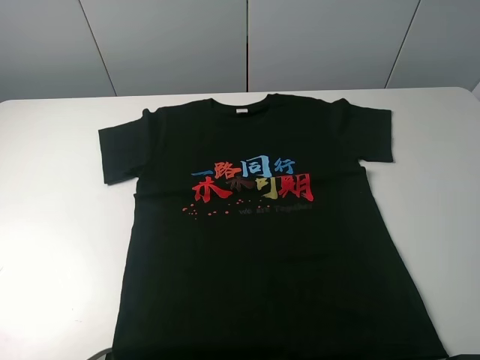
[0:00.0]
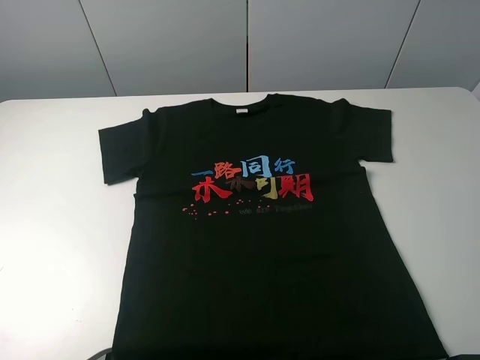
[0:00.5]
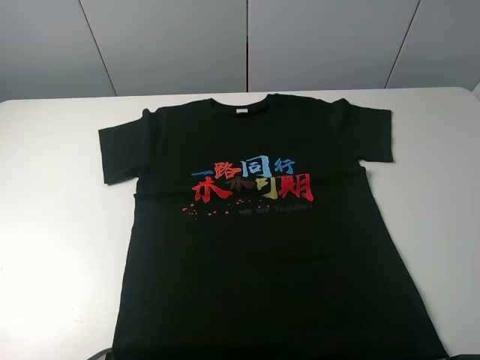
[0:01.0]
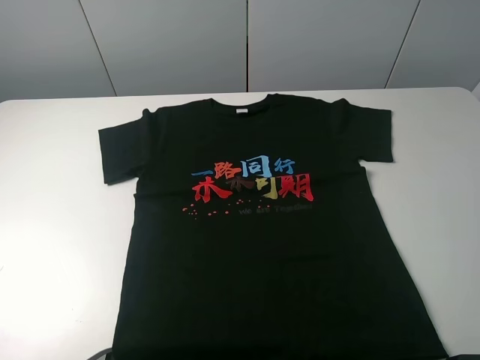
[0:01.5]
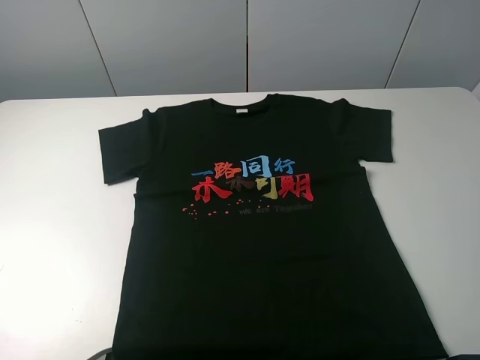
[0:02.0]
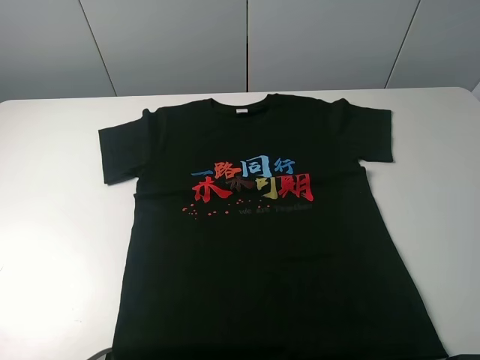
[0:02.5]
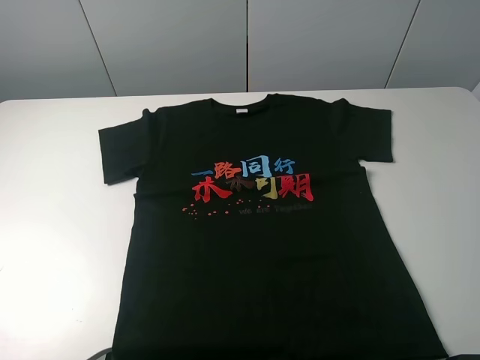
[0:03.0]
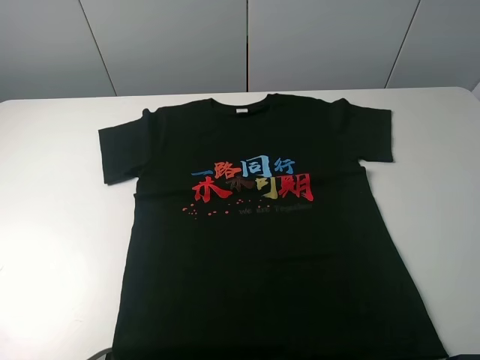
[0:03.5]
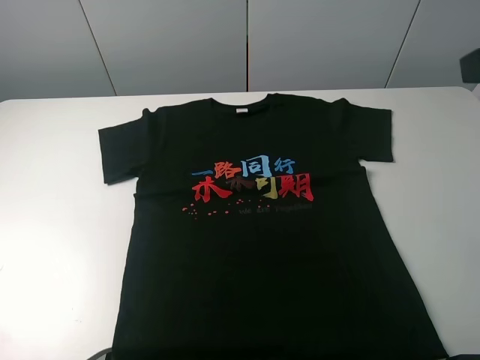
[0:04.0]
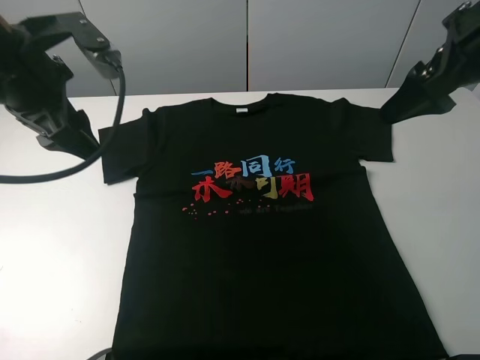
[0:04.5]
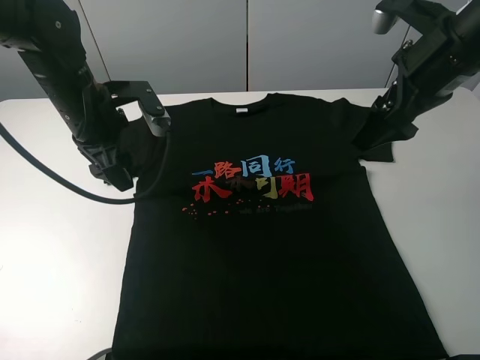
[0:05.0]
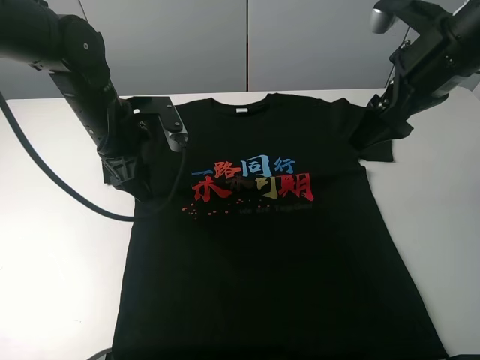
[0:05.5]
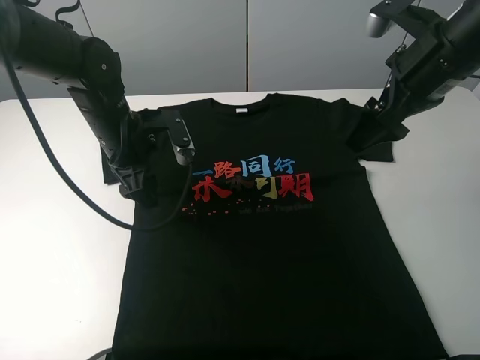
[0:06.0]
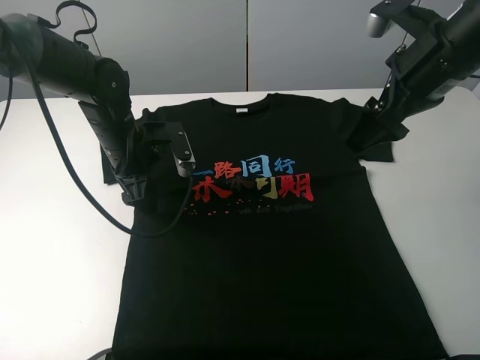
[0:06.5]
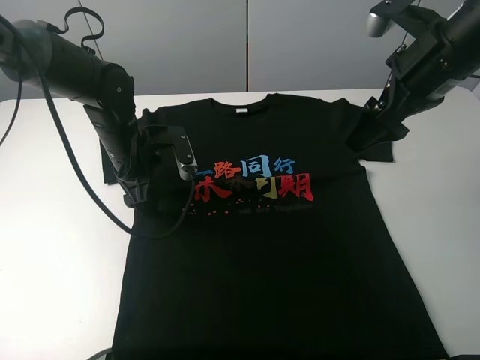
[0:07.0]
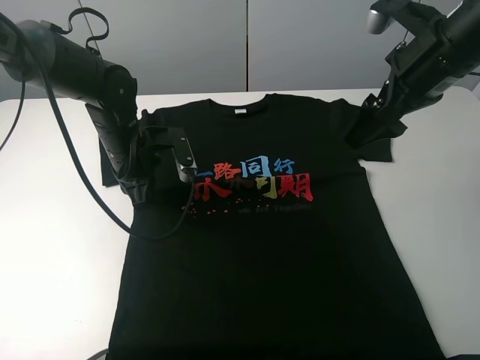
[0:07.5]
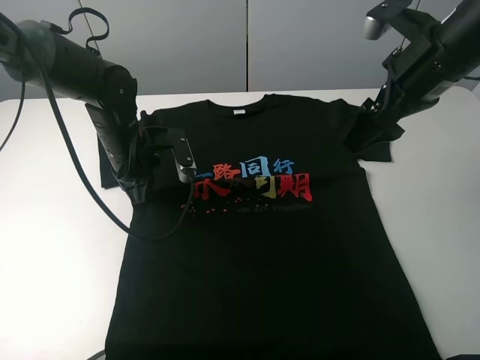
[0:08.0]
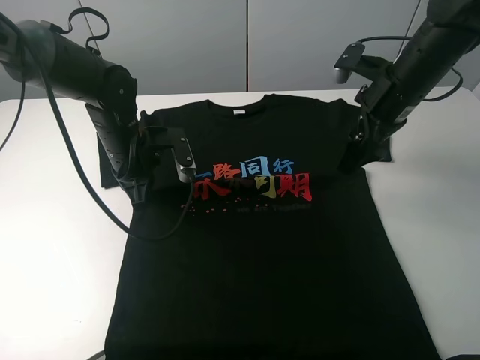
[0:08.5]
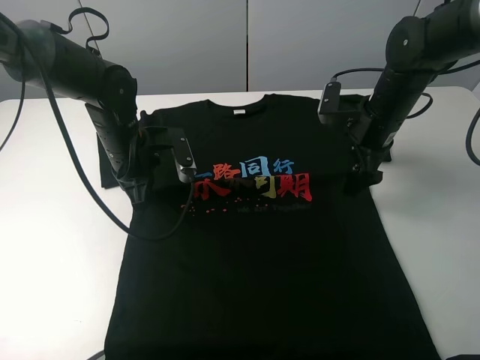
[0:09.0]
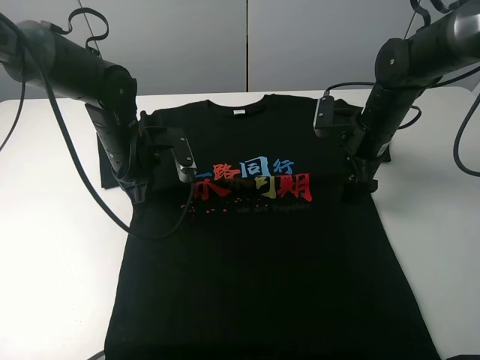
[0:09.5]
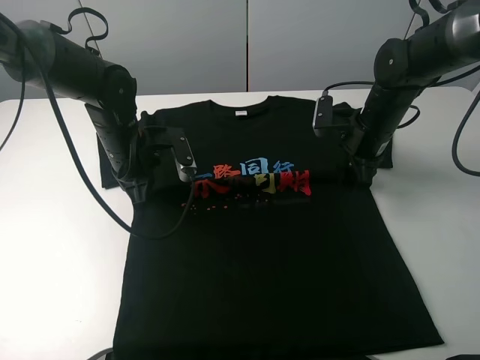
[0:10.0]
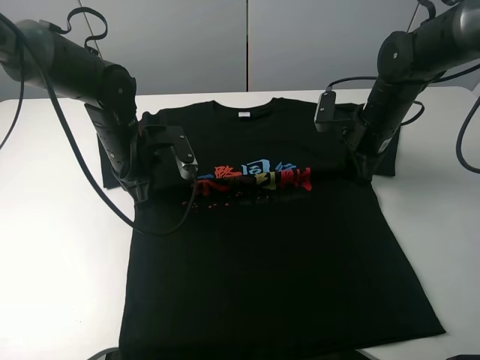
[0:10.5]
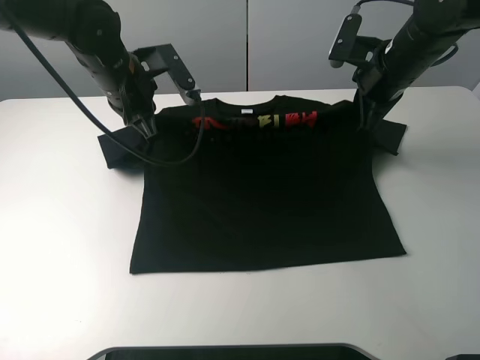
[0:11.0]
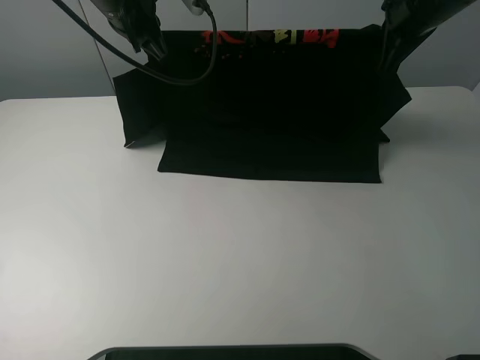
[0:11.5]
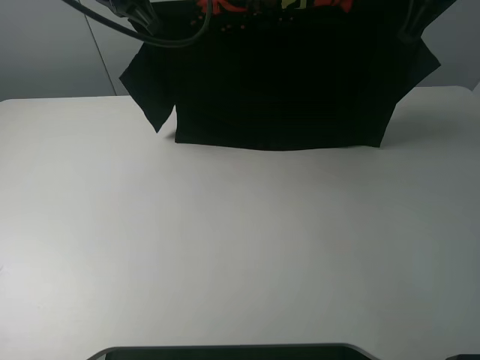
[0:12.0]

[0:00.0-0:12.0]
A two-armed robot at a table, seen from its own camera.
Task of the whole recording: fold the clothes on the table.
Step, 0.0 to 10.0 s: Lift the black T-shirt with the left gripper.
0.0 to 2.0 s: Both grippers stay put.
4.0 to 6.0 s: The right gripper goes roughly 15 cm forward, downward and to the left; the left gripper goes approximately 30 cm downward, to the right and forward.
6.0 to 8.0 s: The left gripper closes up.
8.0 to 10.0 s: The right gripper shifts roughly 15 cm downward and forward, and closes up.
10.0 to 12.0 s: Both grippers move upward, roughly 20 cm.

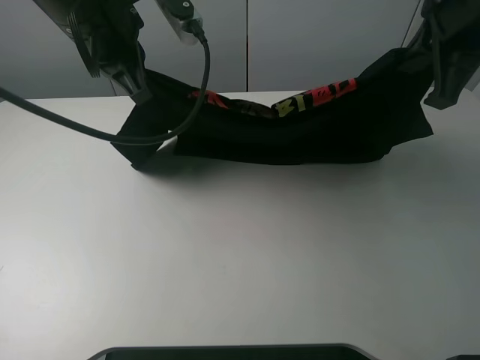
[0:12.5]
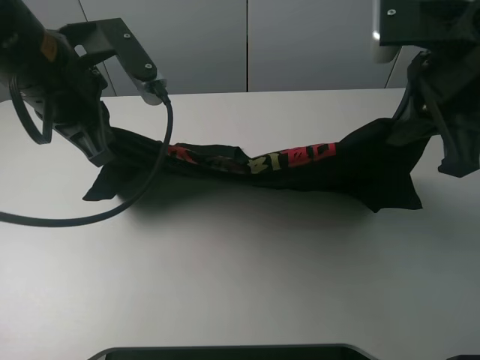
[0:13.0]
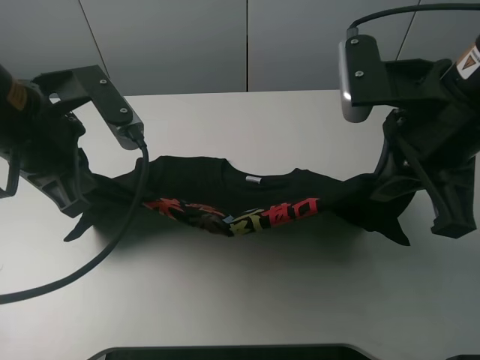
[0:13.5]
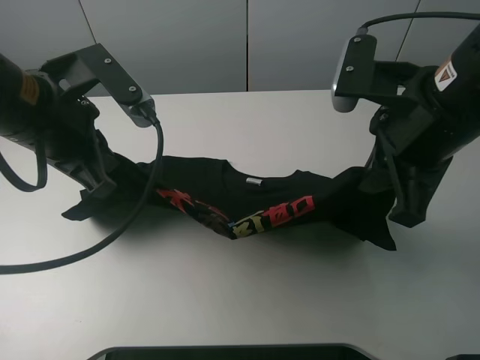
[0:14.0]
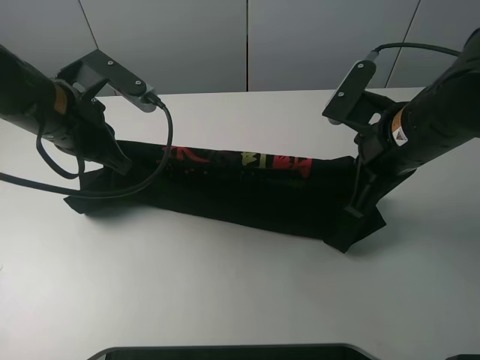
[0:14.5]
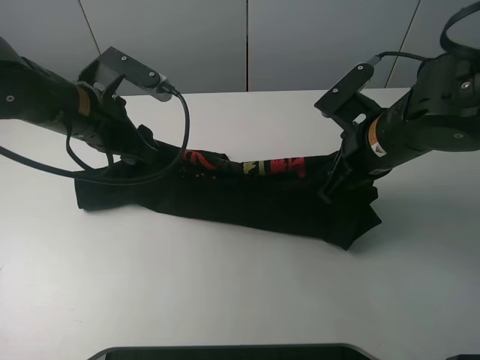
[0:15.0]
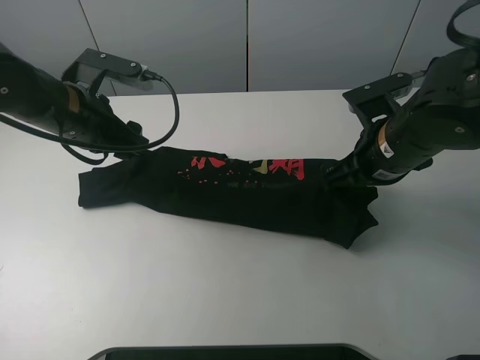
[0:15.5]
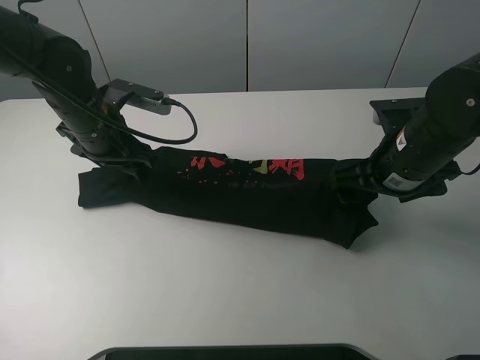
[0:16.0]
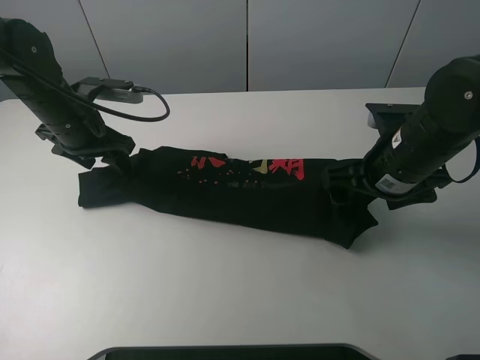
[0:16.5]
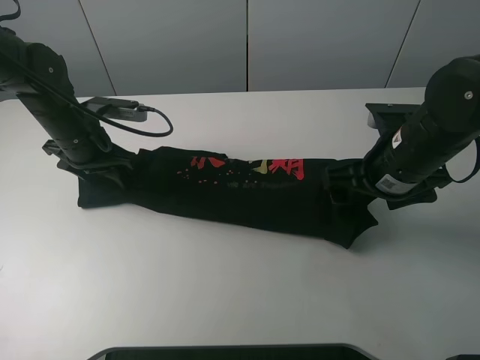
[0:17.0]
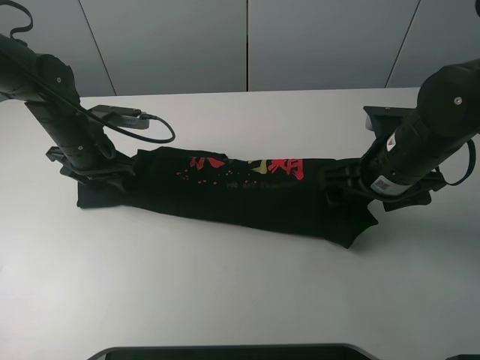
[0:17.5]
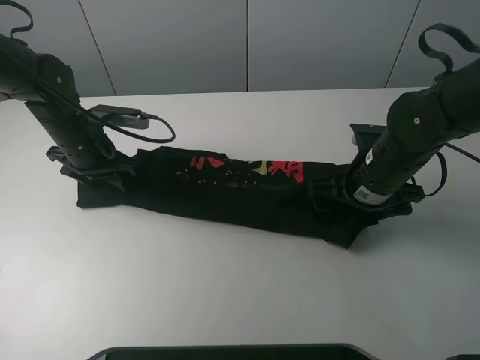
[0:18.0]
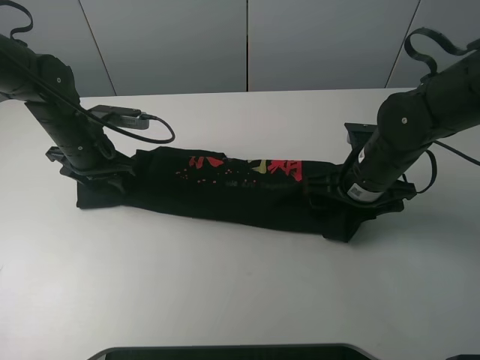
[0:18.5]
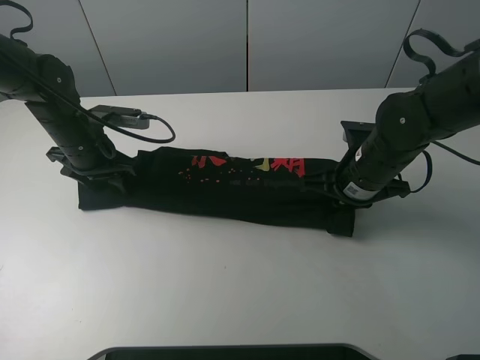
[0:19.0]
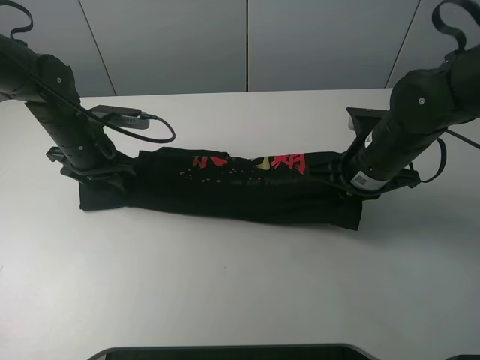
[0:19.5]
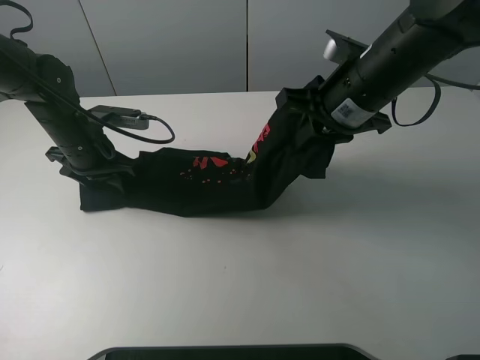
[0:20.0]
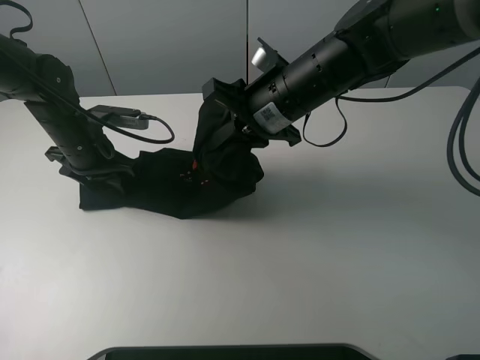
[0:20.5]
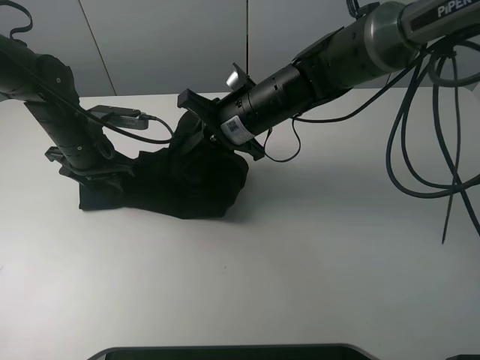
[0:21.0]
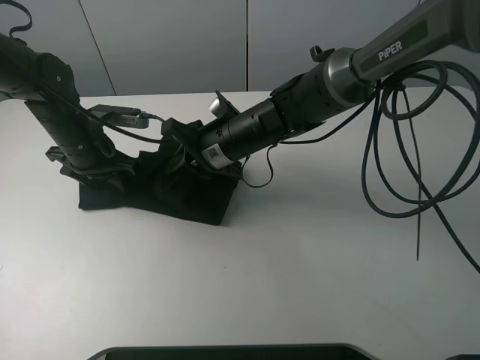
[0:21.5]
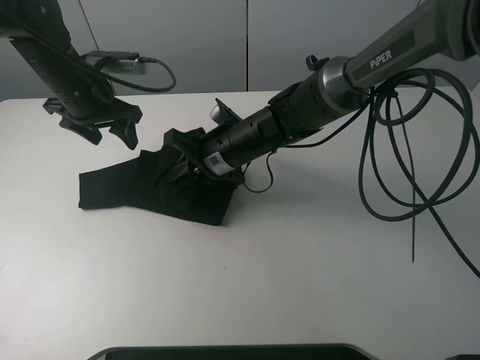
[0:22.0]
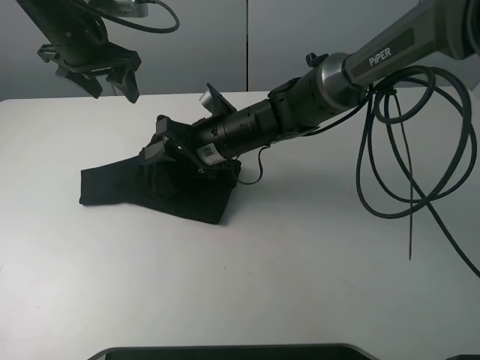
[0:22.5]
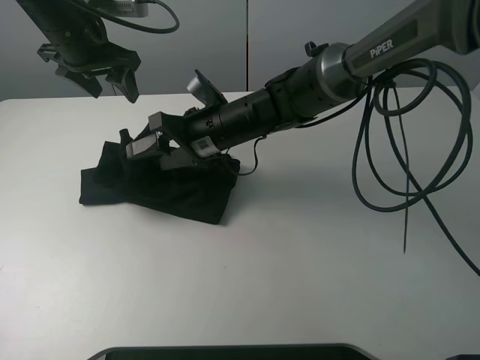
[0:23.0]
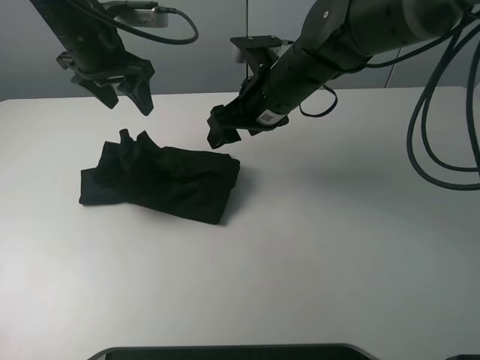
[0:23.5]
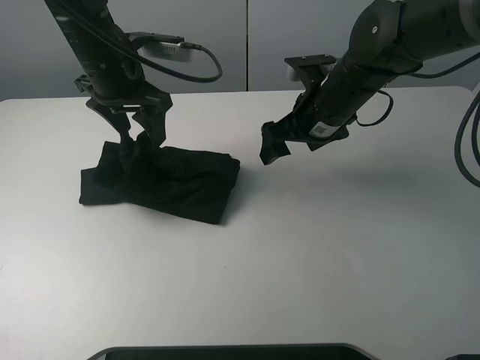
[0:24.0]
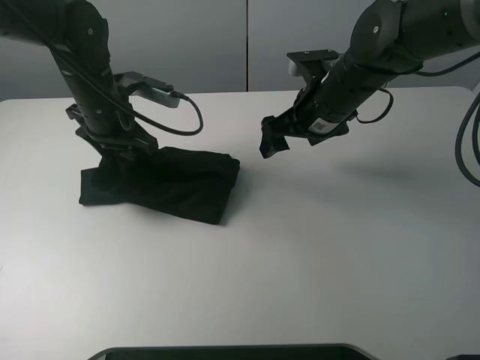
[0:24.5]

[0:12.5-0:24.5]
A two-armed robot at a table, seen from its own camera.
Task of the whole recording: fold the clothes on the table.
Step, 12.5 to 16.5 s: Fold the black T-shirt downward with the left gripper.
Step, 17.0 to 19.0 s: Grasp the black T-shirt with the right gripper.
Step, 19.5 to 23.0 s: Fold the black T-shirt from right to left with right gripper.
12.5 to 14.5 s: The left gripper shifts some 10 cm downward and to the left. Meanwhile the right gripper is displaced downward by roughly 15 cm.
14.5 to 16.5 s: The left gripper travels forward and downward by approximately 10 cm, and opens up. Meanwhile the right gripper opens its fingers.
16.5 to 18.5 s: The right gripper heads downward, covering approximately 5 cm.
18.5 to 20.5 s: The right gripper goes roughly 15 cm to the left and upward, and closes its fingers.
20.5 to 22.5 s: The right gripper is displaced downward and to the left by some 10 cm, and opens. Meanwhile the left gripper goes some 15 cm upward and forward.
22.5 to 24.5 s: The left gripper travels downward and backward by about 10 cm. Meanwhile the right gripper shifts about 15 cm to the right and upward.

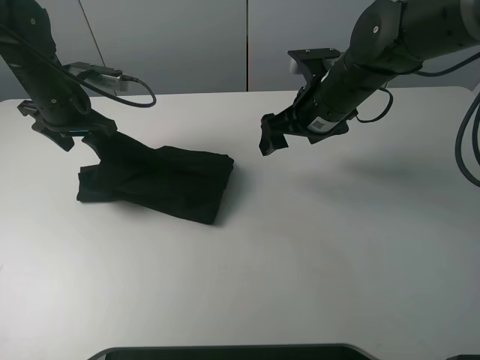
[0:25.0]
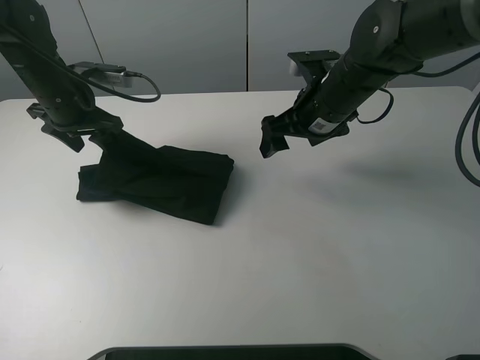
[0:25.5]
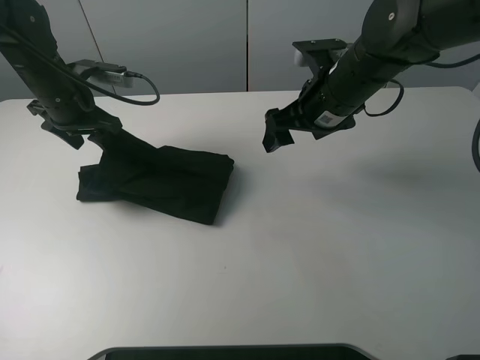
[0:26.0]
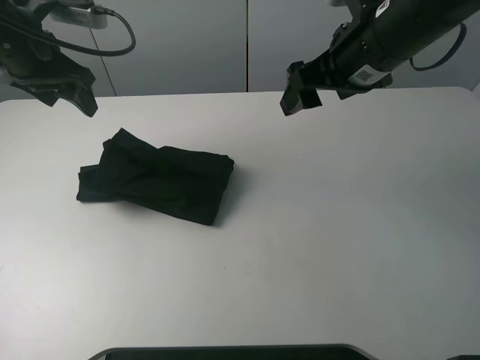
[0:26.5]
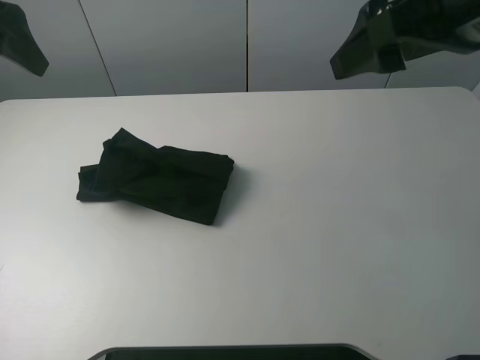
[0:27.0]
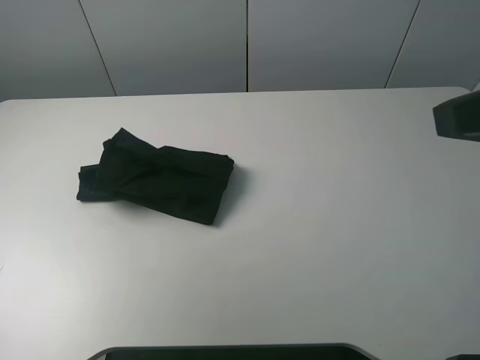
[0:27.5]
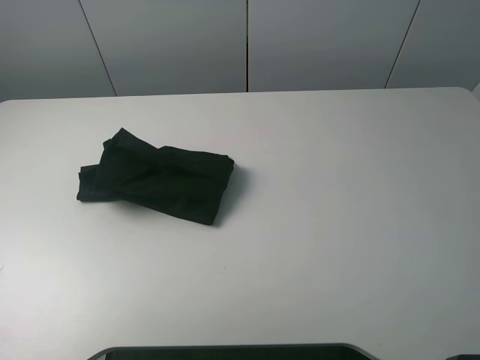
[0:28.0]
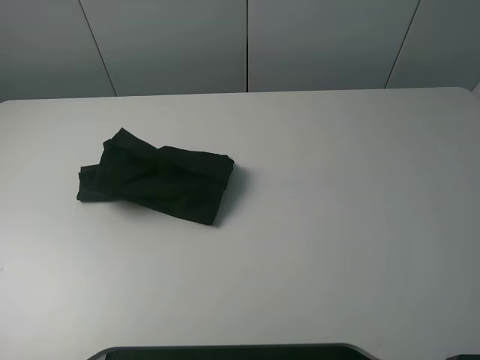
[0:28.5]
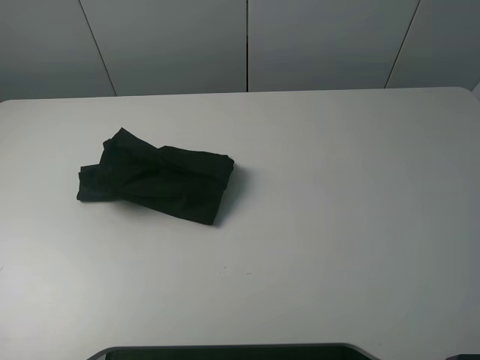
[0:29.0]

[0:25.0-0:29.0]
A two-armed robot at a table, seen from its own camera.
Task of the whole recording: fold the clothes on the table.
25.0 to 27.0 s: The grippers both shift upward and backward by some 20 cm.
27.0 to 29.0 s: The right gripper is displaced backward and to the right by approximately 20 cm. Meanwhile the left gripper heads backward, covering some 25 cm.
